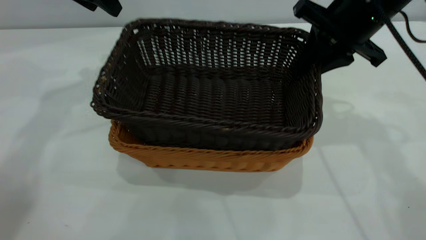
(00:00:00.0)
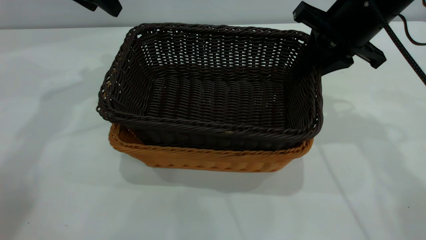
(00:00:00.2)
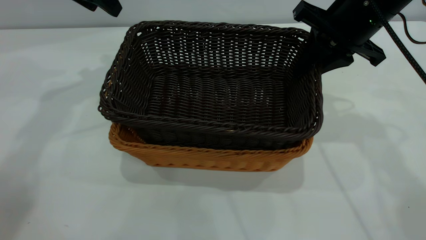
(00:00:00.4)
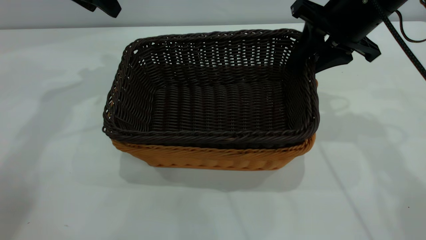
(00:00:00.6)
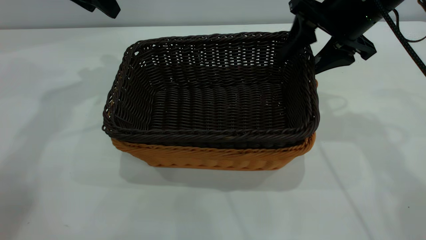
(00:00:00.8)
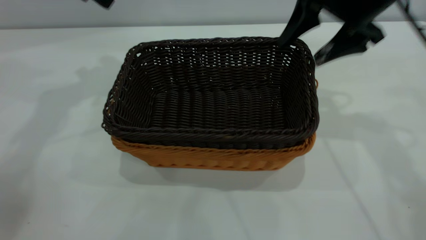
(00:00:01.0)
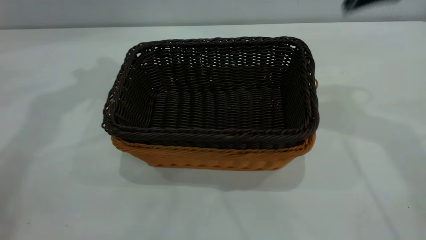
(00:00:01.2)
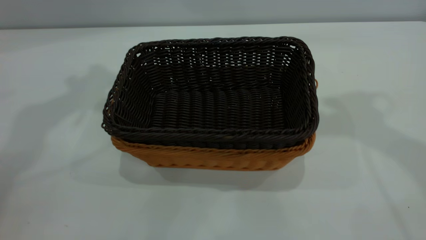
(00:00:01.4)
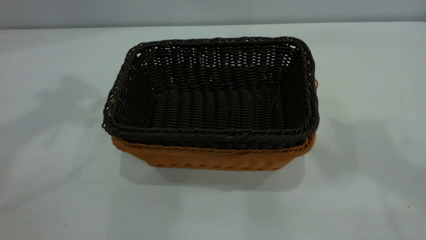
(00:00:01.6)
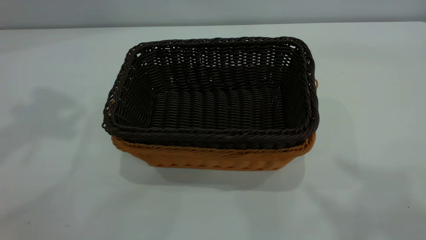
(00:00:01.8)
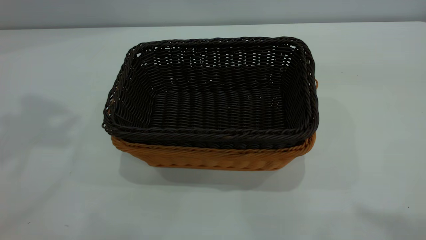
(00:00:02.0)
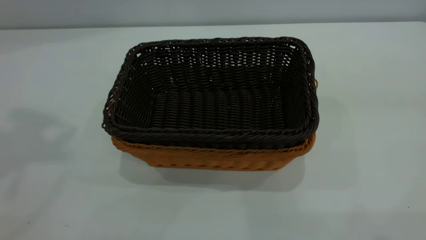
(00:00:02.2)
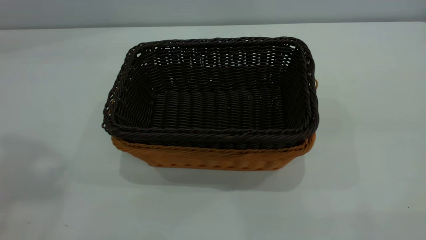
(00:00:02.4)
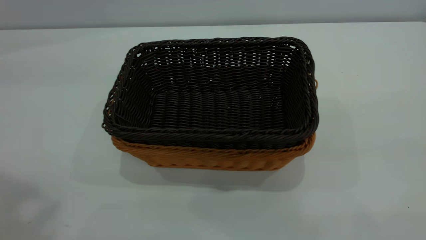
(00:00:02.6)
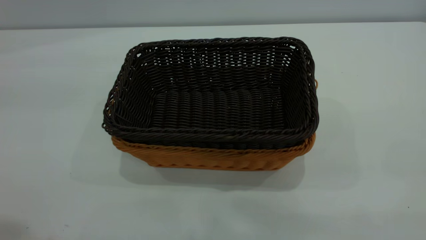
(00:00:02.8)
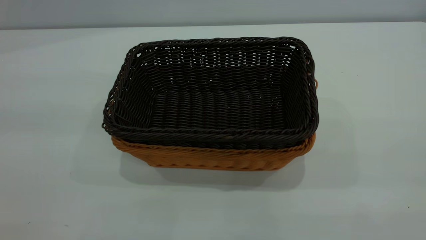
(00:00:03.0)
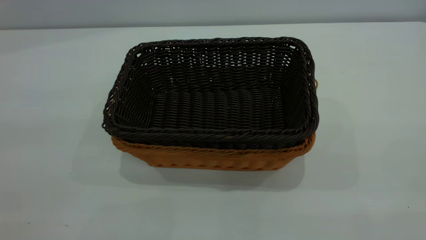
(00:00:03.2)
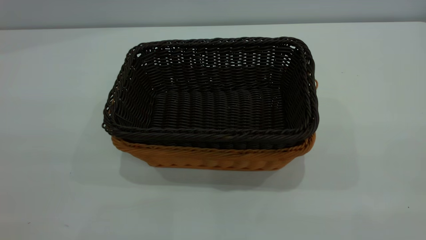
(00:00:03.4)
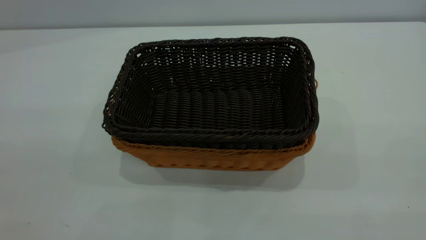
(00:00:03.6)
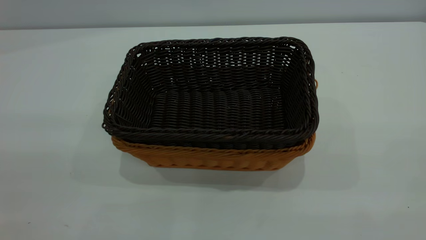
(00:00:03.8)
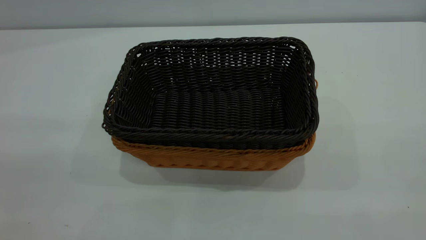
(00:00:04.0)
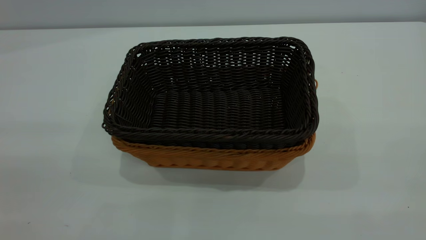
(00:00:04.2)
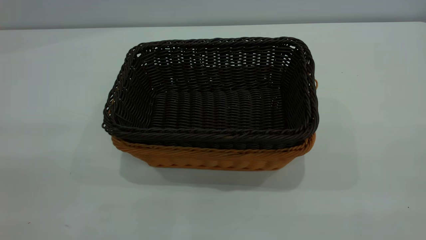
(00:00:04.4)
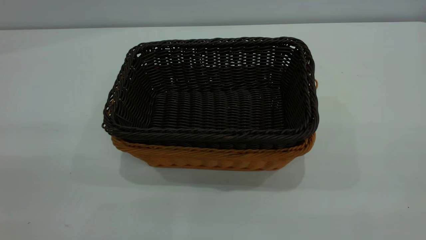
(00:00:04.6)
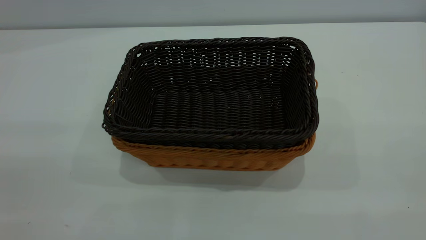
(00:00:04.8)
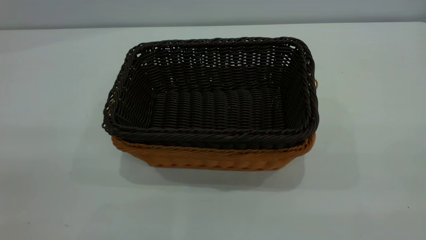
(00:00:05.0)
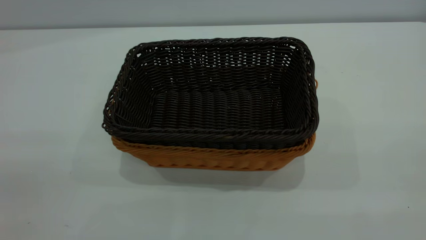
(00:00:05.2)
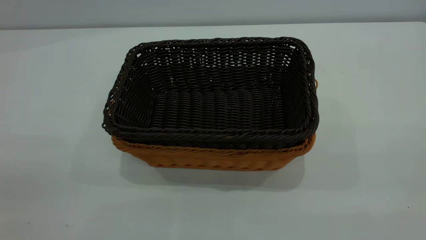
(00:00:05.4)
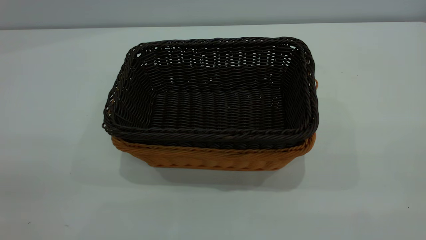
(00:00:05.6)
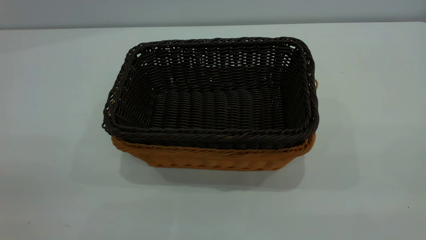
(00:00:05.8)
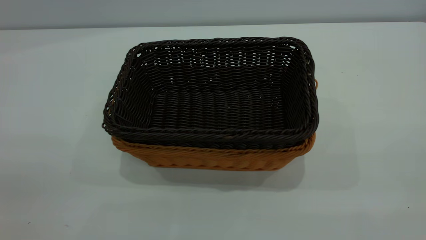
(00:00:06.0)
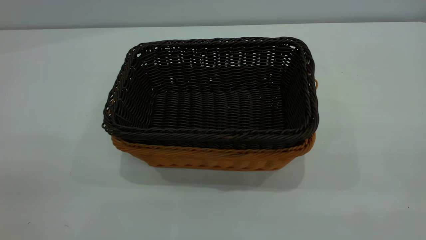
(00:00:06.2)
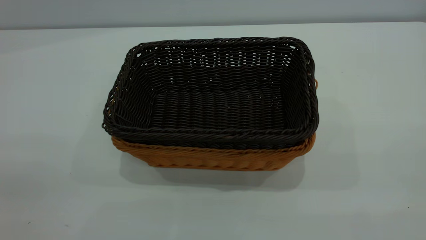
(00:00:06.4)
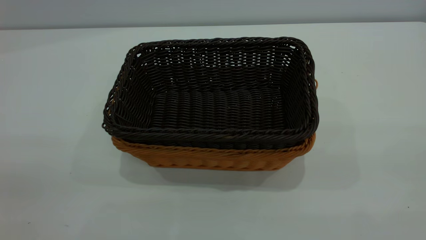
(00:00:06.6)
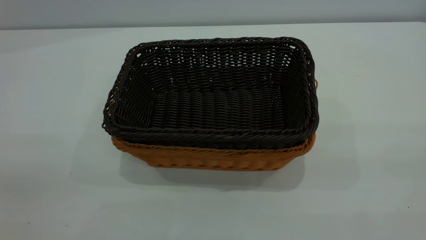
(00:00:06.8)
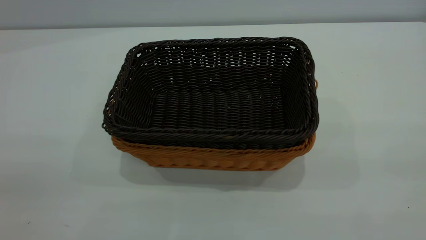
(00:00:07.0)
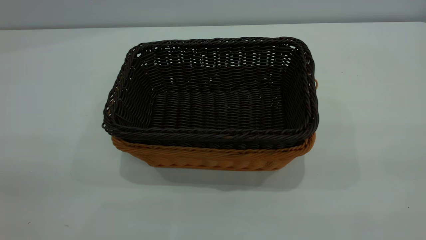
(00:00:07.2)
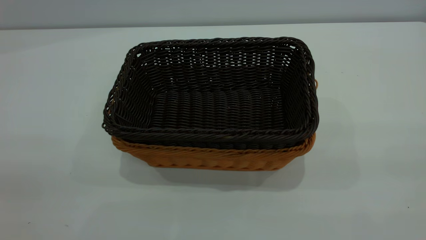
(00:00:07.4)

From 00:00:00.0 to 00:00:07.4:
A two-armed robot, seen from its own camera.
Task of the whole recording: the left gripper grasp the brown basket and place it in the center of the table, the right gripper grasp the black basket and place it inside the brown one.
From 00:00:00.0 to 00:00:01.4: The left gripper goes roughly 20 cm upward and backward; the right gripper is displaced upward by about 20 cm, and opens its fingers.
